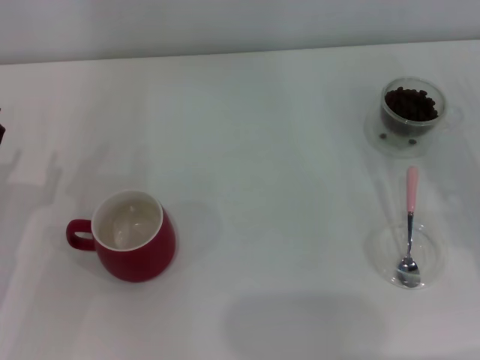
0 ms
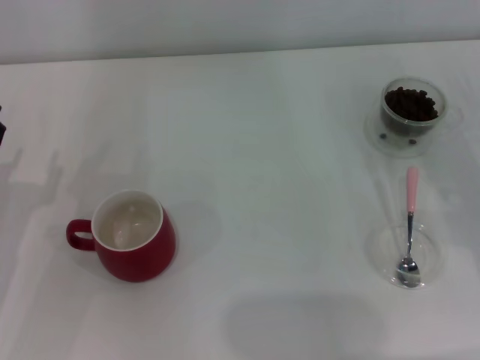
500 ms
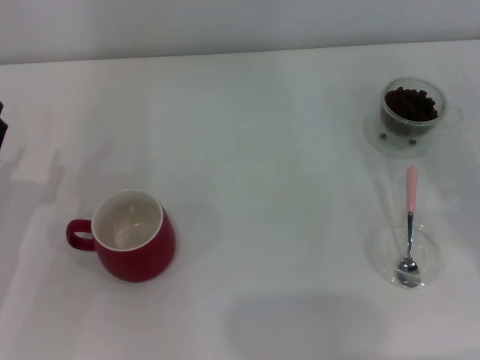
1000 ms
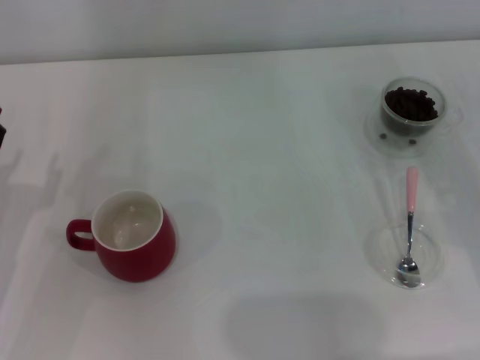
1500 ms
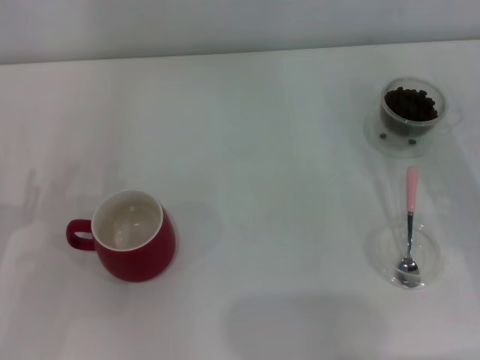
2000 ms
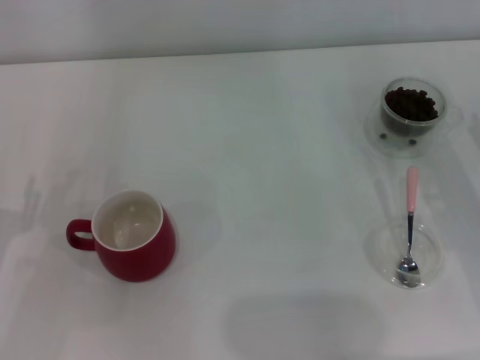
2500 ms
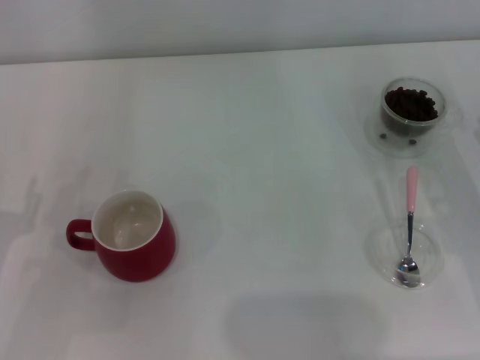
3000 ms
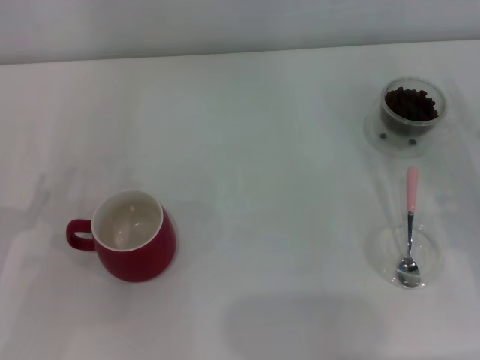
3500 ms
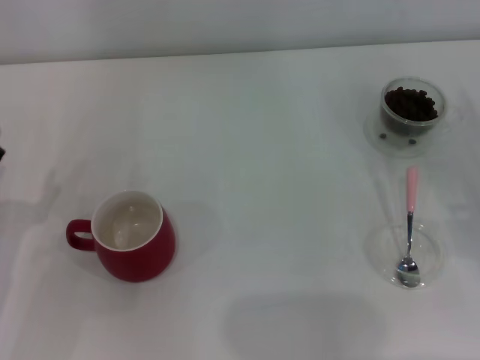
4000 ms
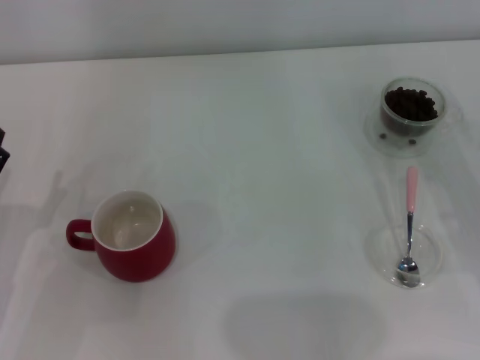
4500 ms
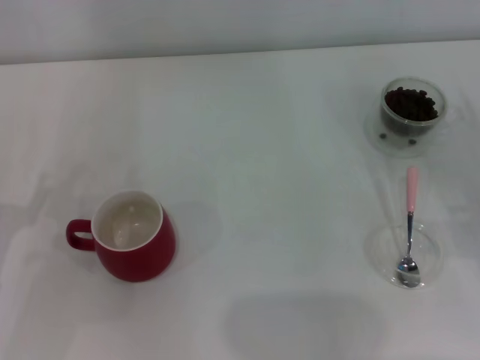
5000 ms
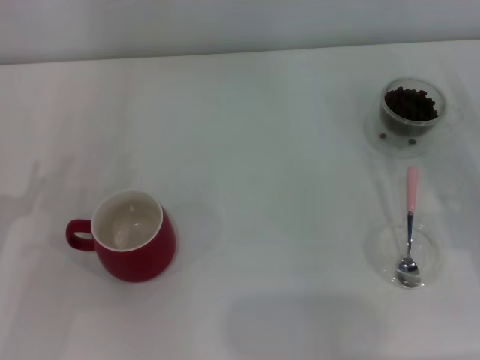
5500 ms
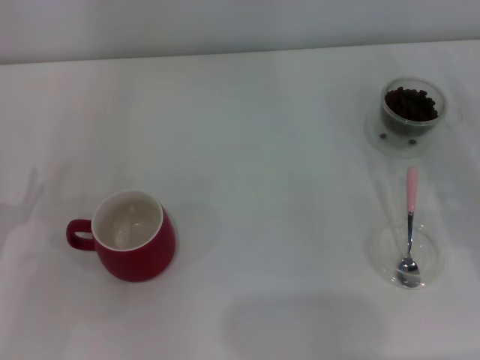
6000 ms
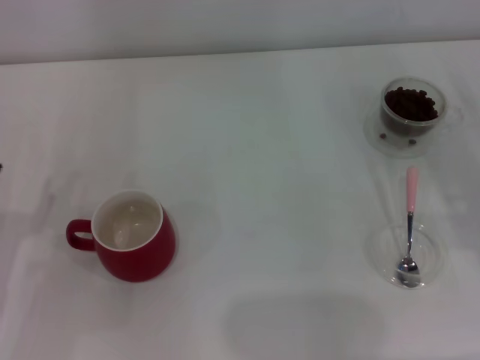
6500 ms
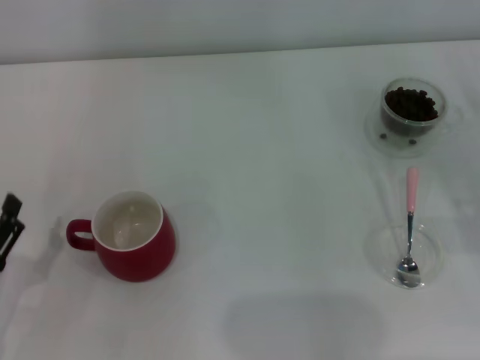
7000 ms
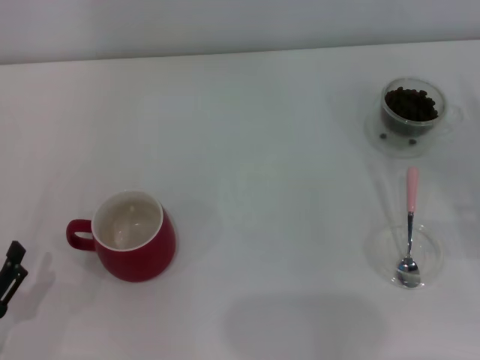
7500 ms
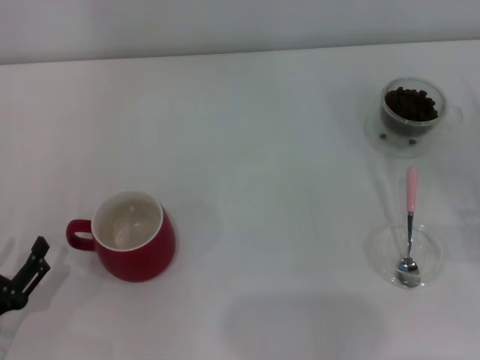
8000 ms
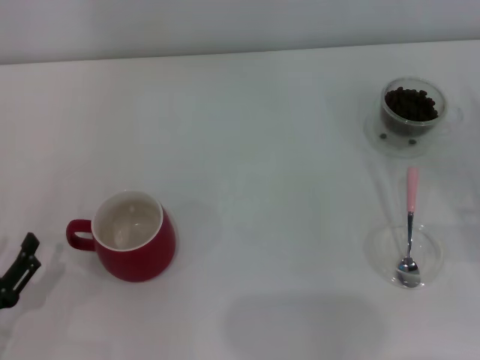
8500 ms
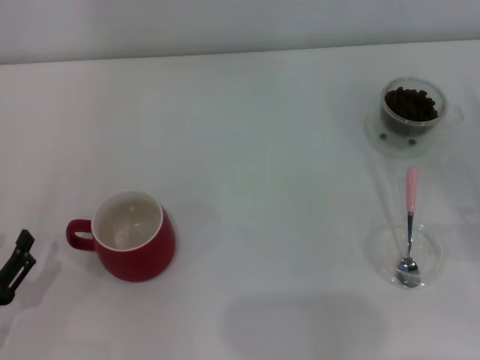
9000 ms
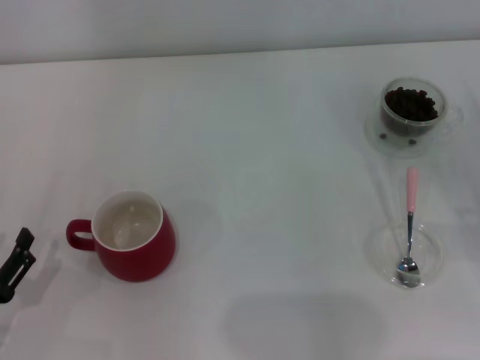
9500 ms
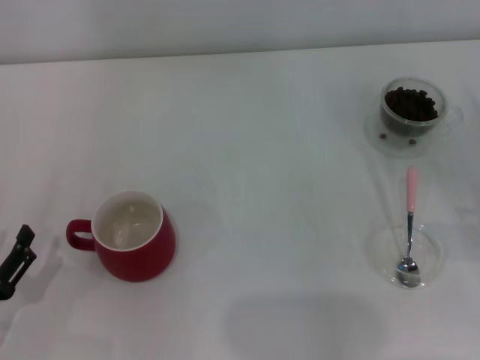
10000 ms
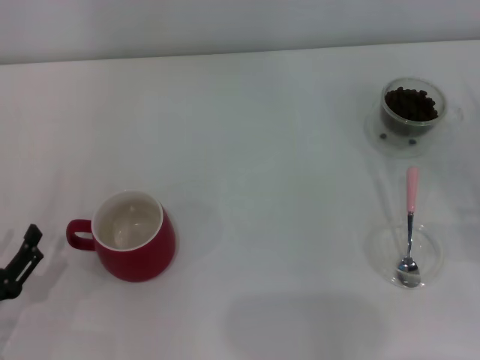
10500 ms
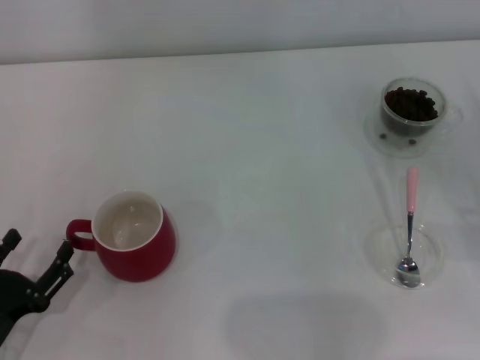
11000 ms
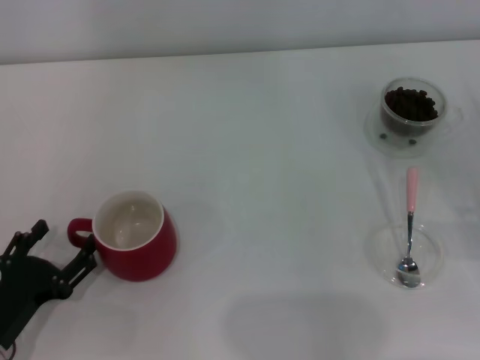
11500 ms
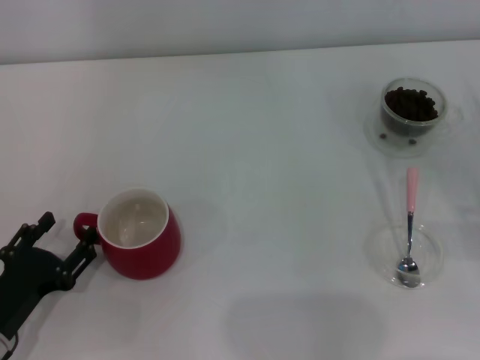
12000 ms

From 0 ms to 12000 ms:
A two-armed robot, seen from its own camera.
Task of the whole recording: Use a pink spoon to take out the coffee beans from the glass and pour them into the red cup.
From 6000 ms to 8000 ms: The left gripper heads backward, covering some 5 cm.
From 8000 ms to 10000 ms: Neither gripper changes place.
From 10000 ms to 12000 ms: The grippers stay close to where they were, moving slightly.

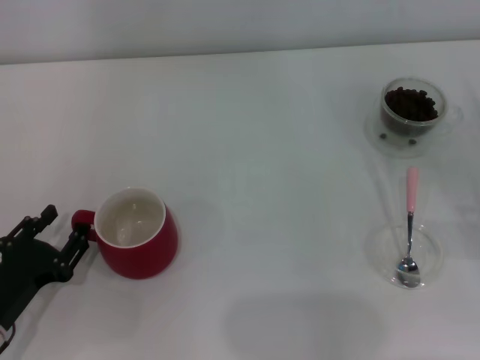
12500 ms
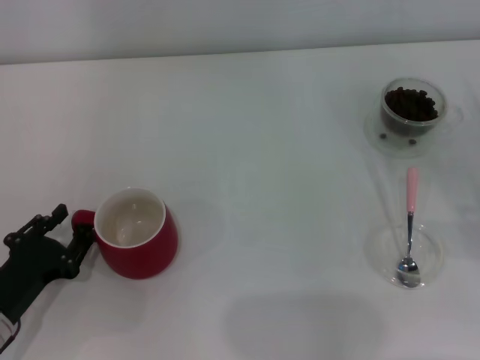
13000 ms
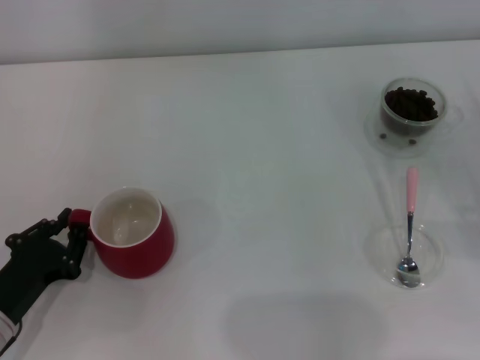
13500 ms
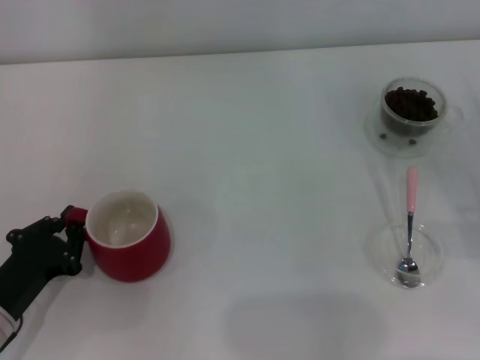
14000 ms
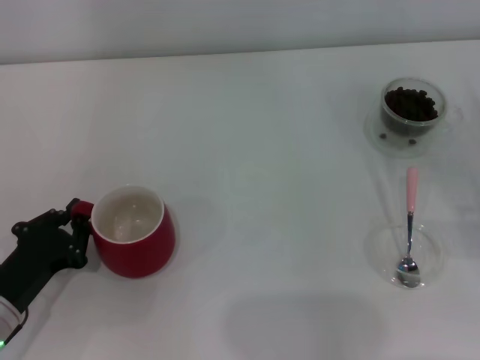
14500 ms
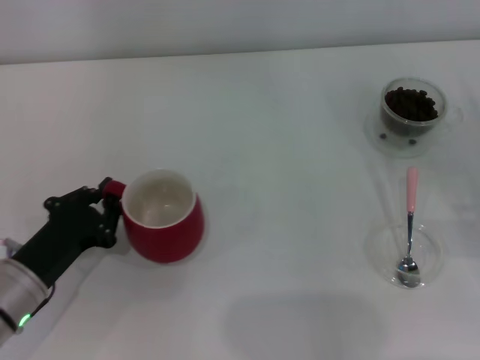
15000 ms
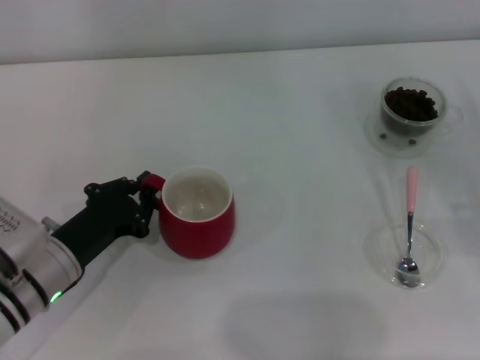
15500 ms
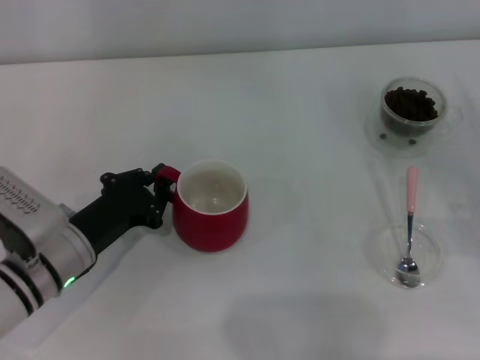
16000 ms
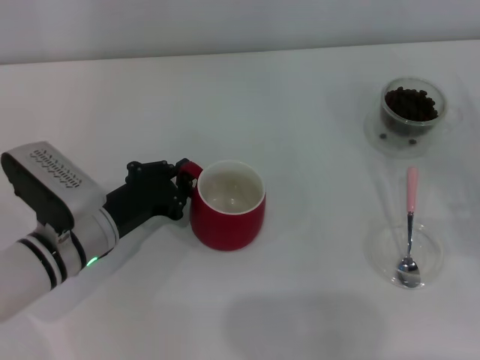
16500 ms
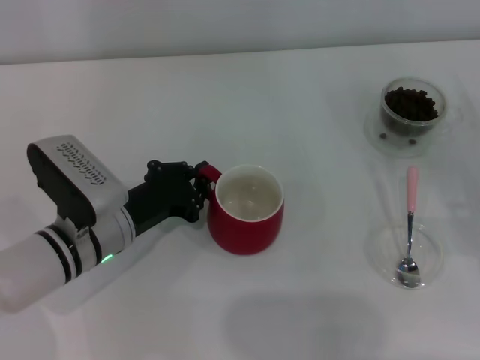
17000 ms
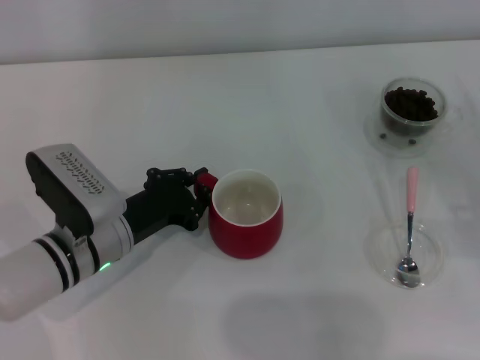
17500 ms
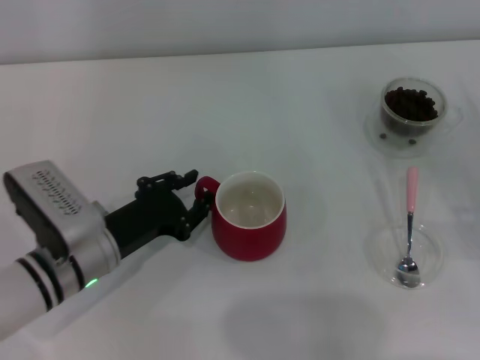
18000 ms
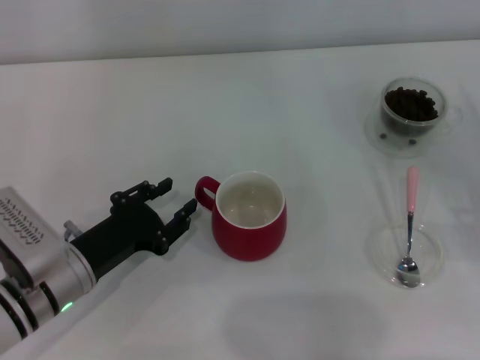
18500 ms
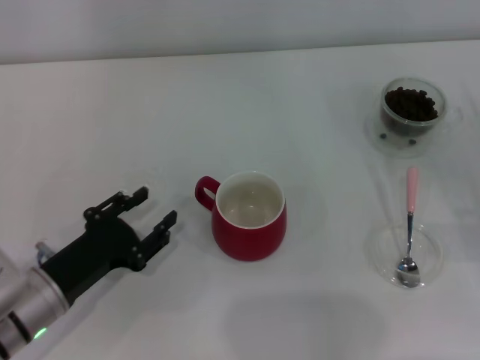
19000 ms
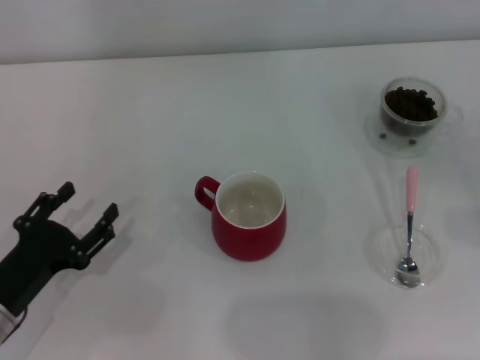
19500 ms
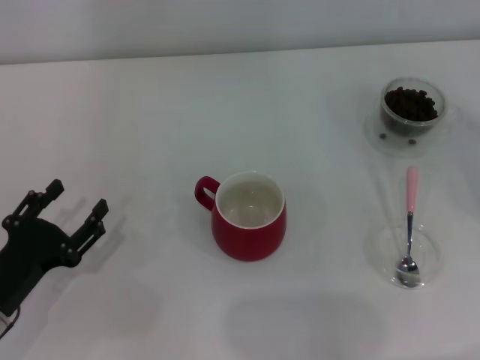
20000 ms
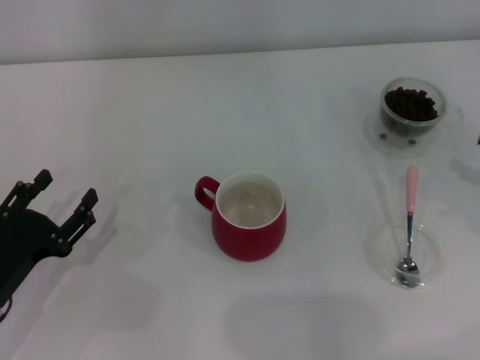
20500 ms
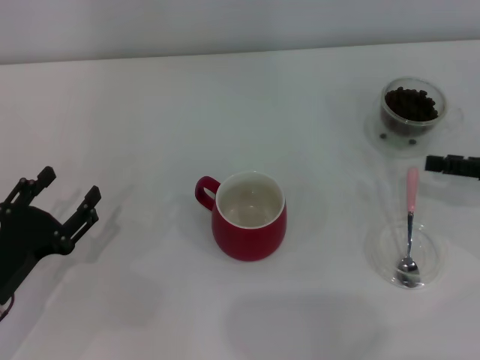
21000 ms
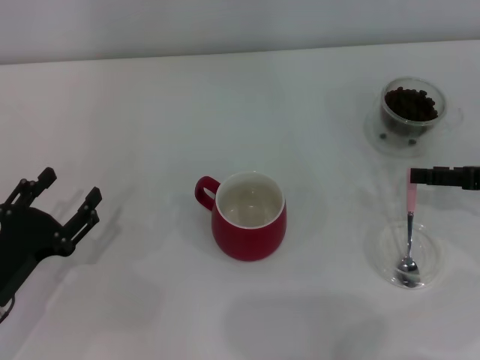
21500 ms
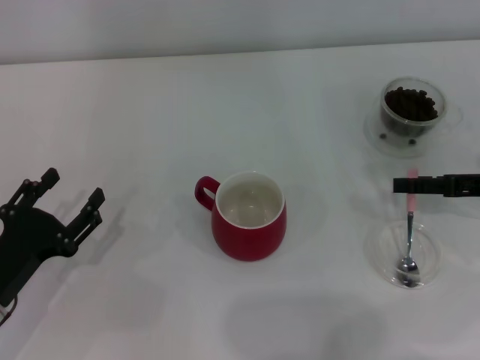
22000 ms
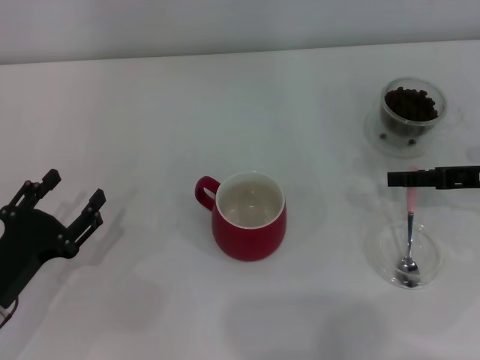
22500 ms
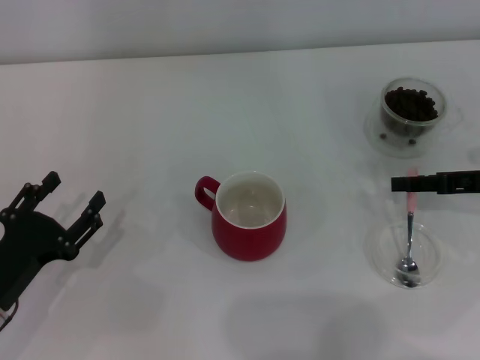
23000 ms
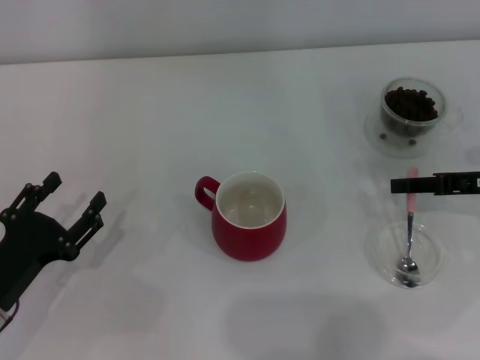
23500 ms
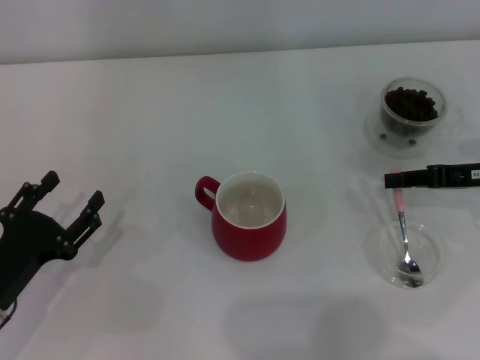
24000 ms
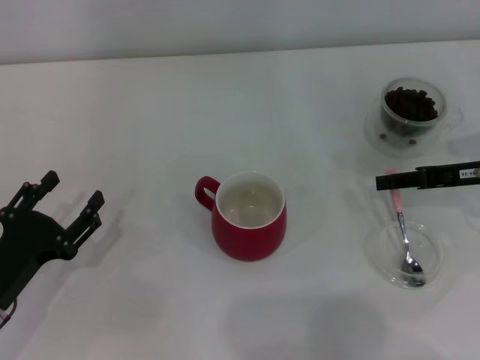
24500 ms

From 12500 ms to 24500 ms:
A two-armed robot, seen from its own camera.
Task of the whole recording: Use a pink spoon to take out the coffee beans from the glass and pour them into the red cup.
Step, from 12500 ms to 18500 ms: Move the cup to the center of view with the left gripper.
From 12500 ms to 14500 ms: The left gripper closes its fingers.
From 14500 ms to 16500 ms: The left gripper is displaced to the right and forward by about 10 cm.
From 16500 ms to 18500 ms: The left gripper opens its fingers.
From 18500 ms to 20500 ms: The left gripper is displaced to the left by approximately 5 cm, and opens up. Meanwhile the right gripper goes about 10 cm upward and to the right.
From 20500 ms to 22500 ms: The right gripper moves to the left, roughly 5 cm.
From 22500 ms to 24500 ms: The right gripper closes.

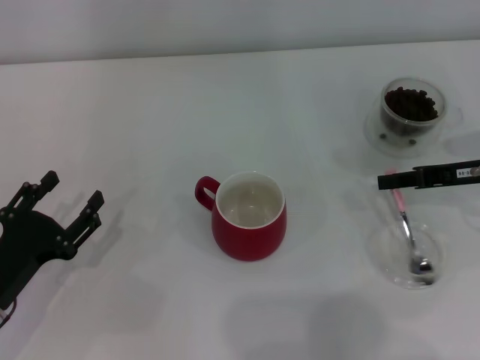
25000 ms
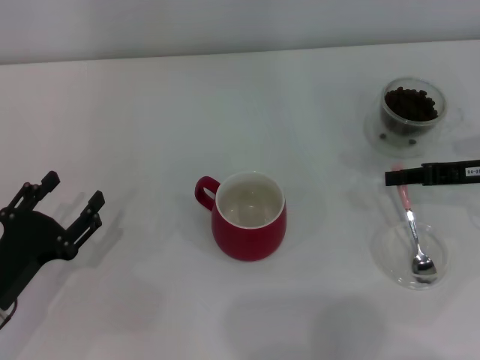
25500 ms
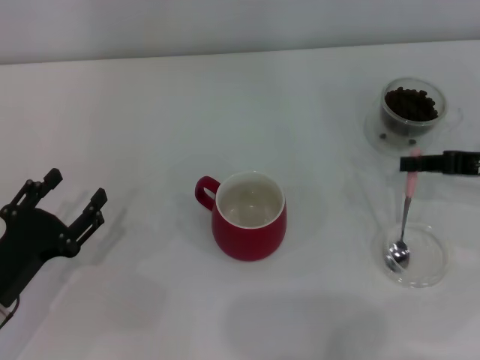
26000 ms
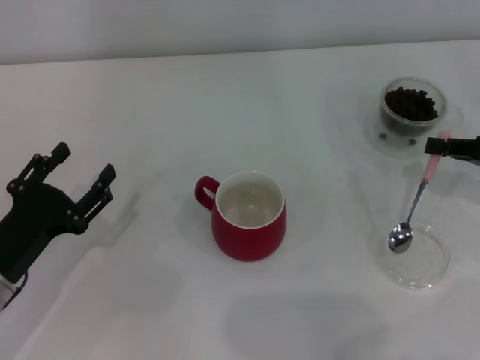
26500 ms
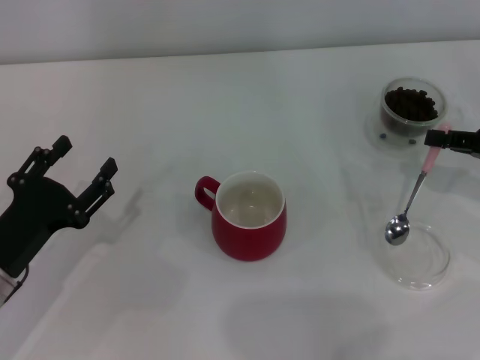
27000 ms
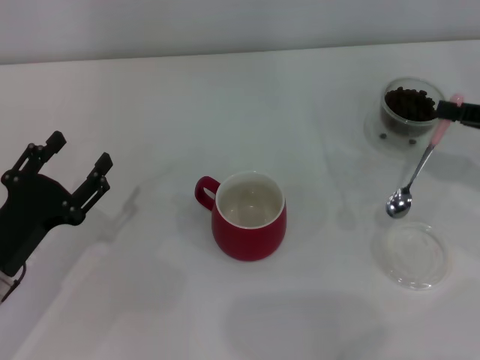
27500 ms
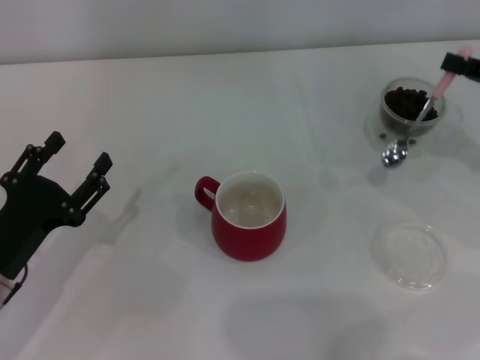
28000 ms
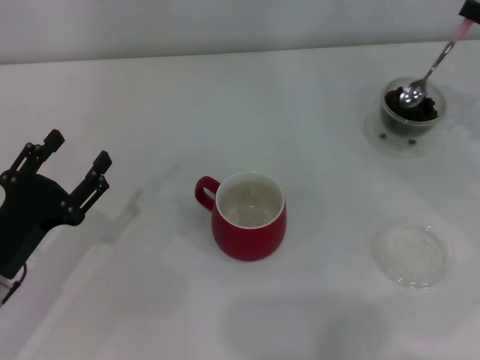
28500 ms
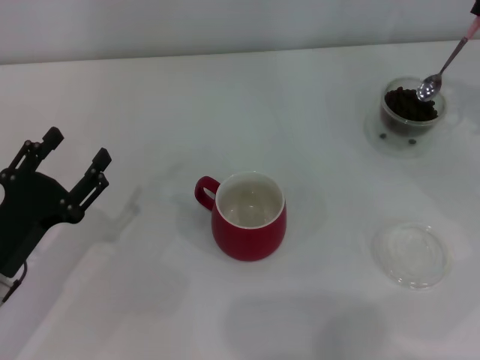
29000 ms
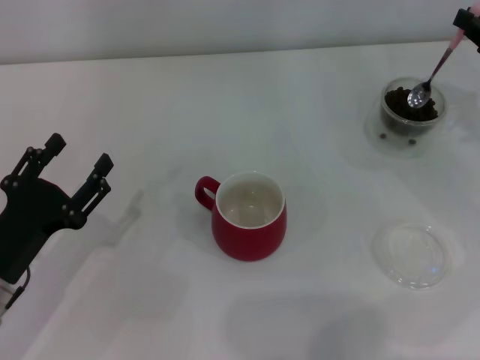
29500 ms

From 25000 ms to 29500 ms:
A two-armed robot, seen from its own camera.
Task of the whole recording: Use a pink spoon to take out the coffee beans from the glass and pour them into the red cup.
From 25000 ms to 27000 ms: The right gripper moves about 5 cm.
From 27000 ms to 29500 ms: The right gripper goes some 5 cm forward.
